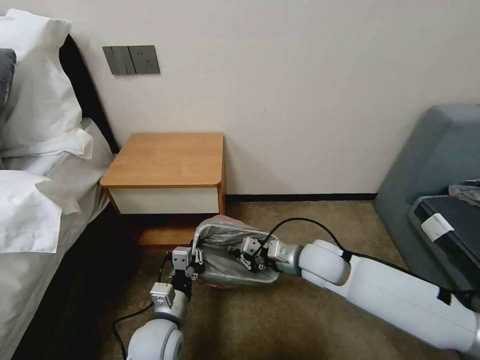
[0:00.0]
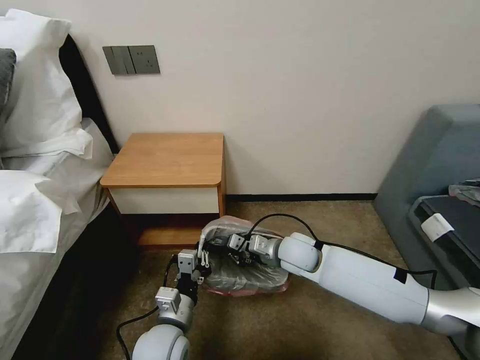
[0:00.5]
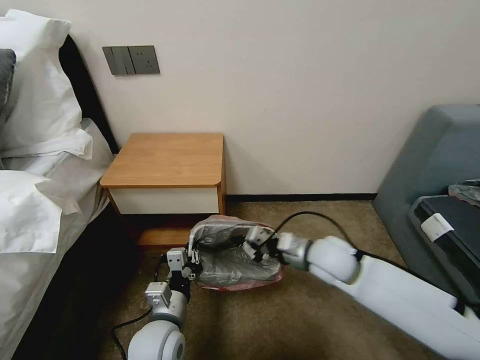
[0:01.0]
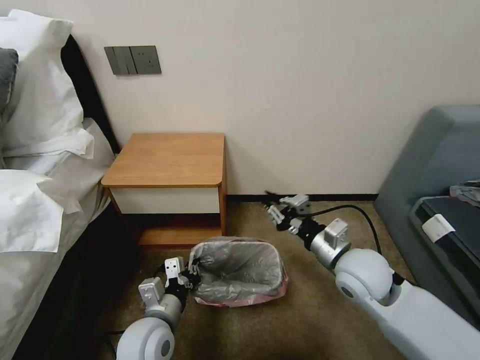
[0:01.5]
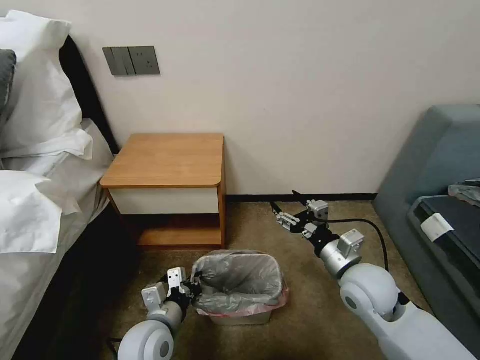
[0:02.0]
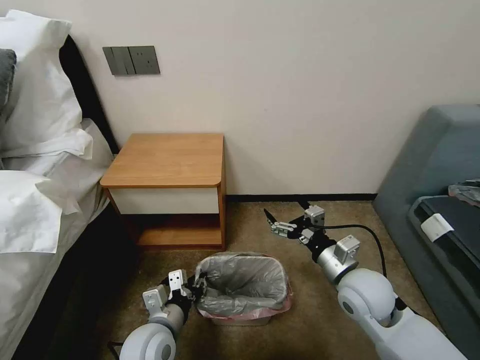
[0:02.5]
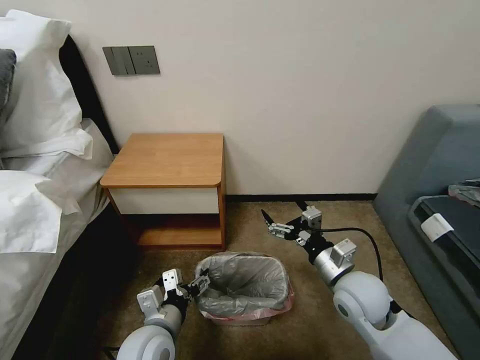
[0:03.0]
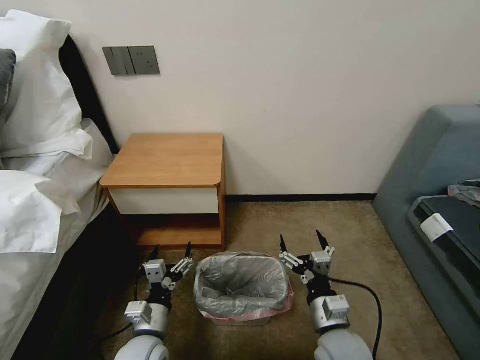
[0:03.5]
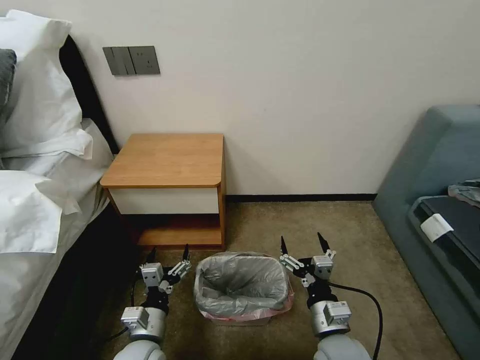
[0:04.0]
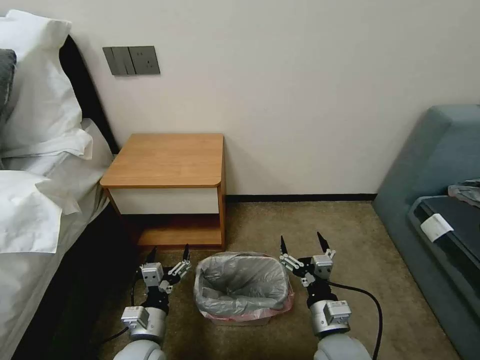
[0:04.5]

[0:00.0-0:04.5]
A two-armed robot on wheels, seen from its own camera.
Task of the whole recording: Pick up the garbage bag from the table and place it over the trash can.
0:00.0 to 0:02.0: The right gripper goes roughly 10 cm to the right and backward, and opens up.
0:02.0 to 0:04.5: The right gripper is displaced backward, downward and to the left by approximately 15 cm, while the left gripper moves approximately 5 cm, and opens its fingers.

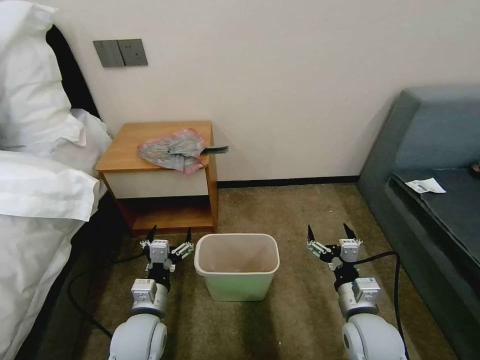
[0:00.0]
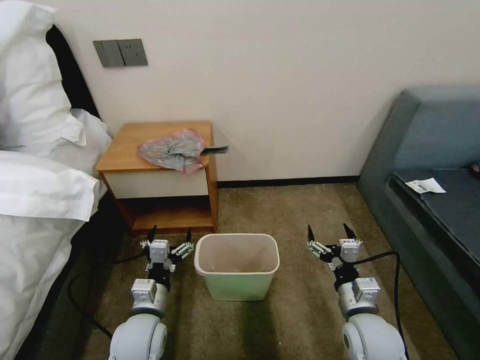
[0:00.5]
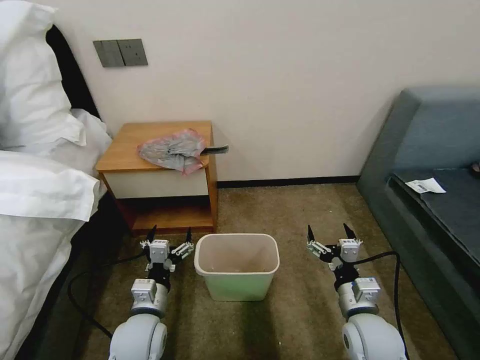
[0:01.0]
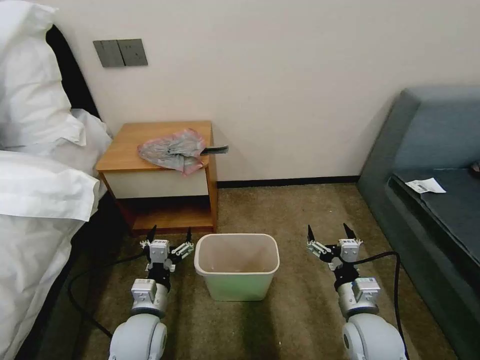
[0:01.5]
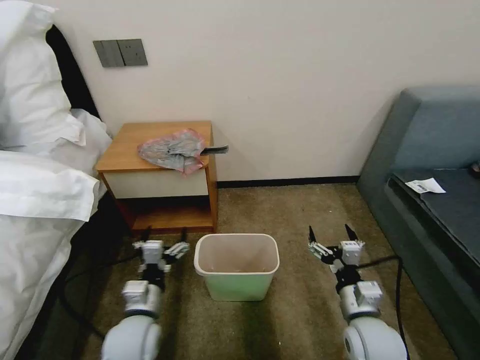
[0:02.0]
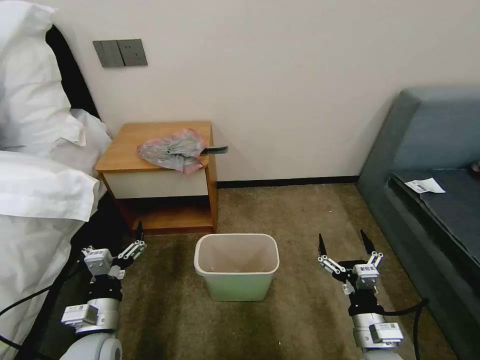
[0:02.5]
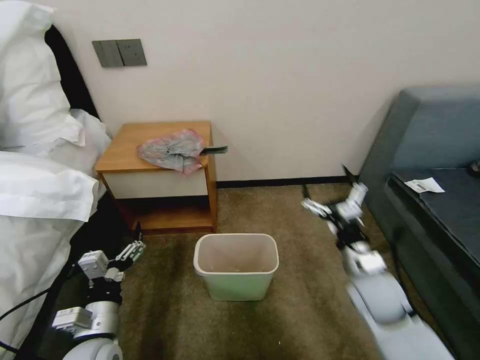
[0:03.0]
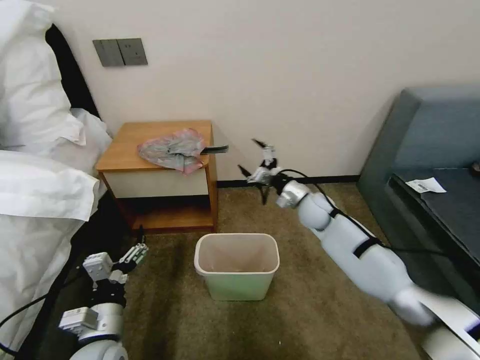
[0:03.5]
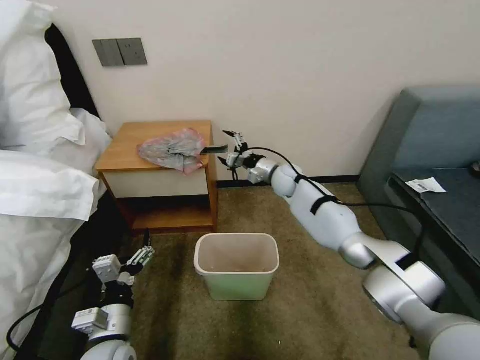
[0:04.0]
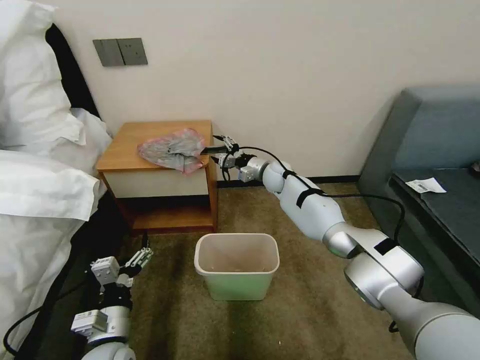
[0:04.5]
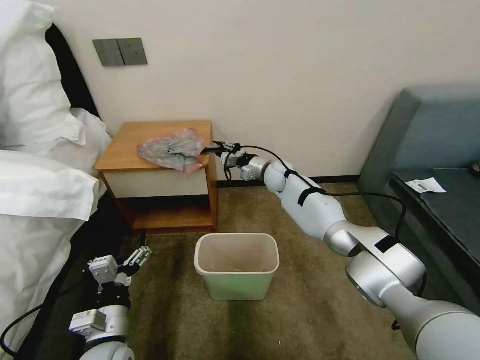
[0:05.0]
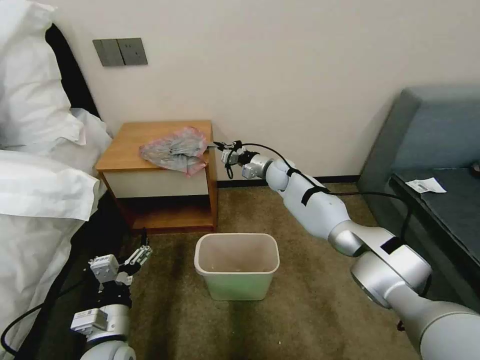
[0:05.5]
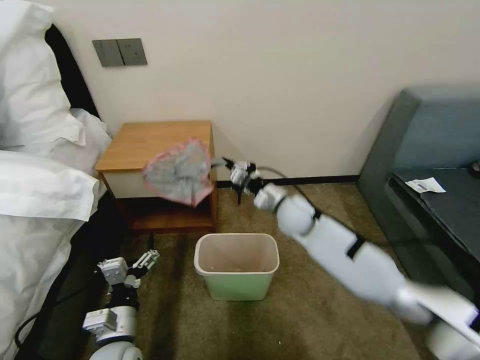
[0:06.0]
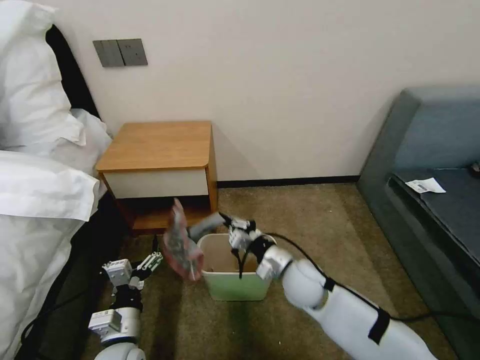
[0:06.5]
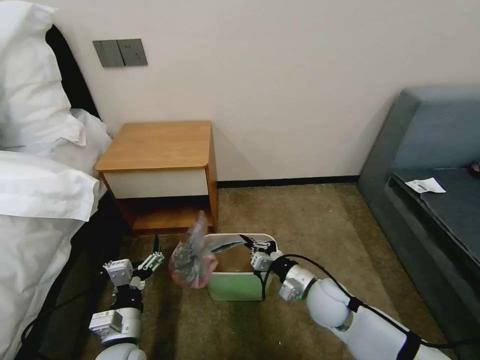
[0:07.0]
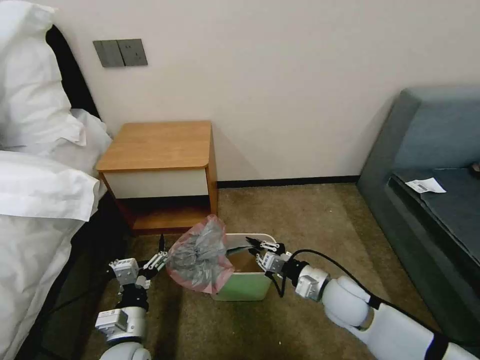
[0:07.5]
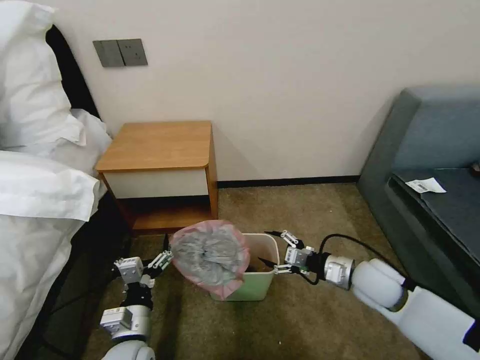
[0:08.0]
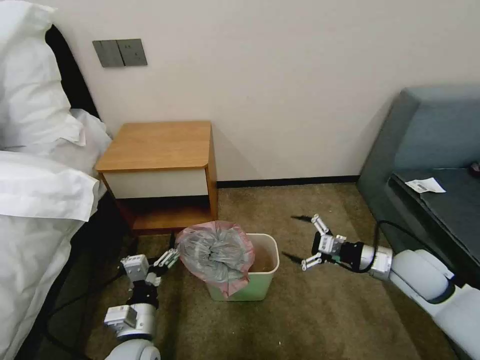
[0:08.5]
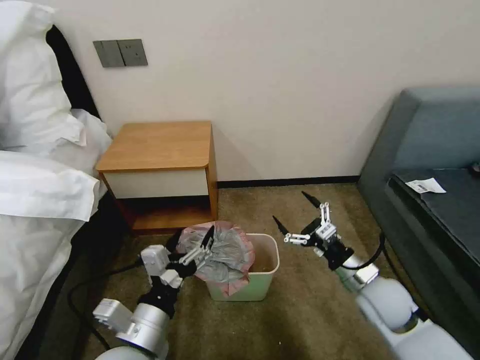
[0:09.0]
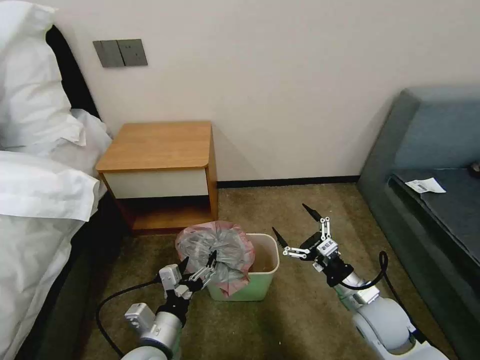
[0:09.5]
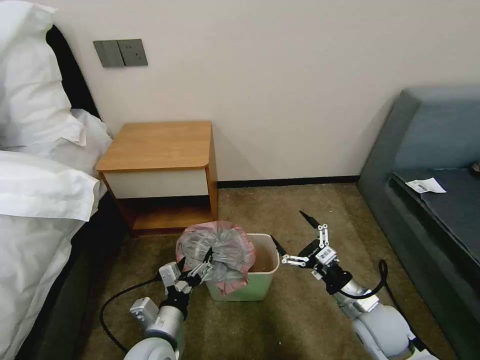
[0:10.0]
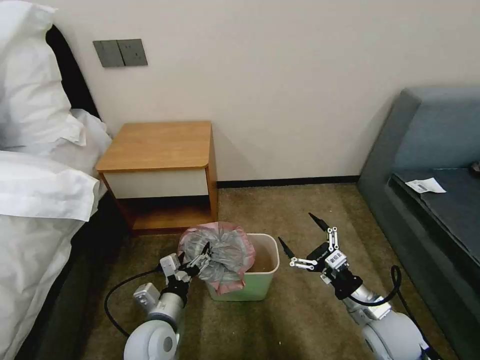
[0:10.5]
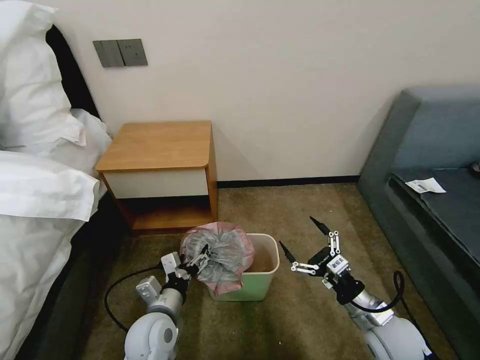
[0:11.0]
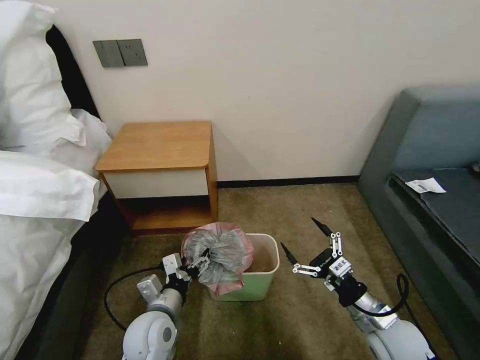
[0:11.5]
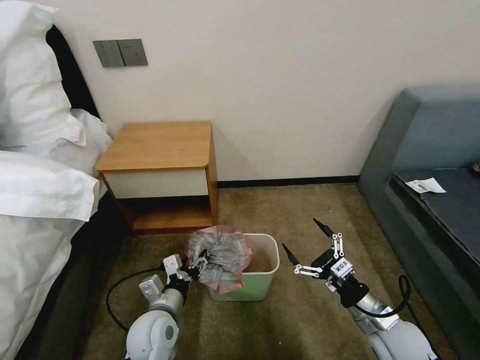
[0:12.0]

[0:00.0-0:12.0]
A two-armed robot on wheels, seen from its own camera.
Task of the whole recording: Pick up the garbage bag from the table and place it over the trash can.
0:02.0 to 0:04.0: The left gripper moves about 5 cm. Meanwhile the right gripper shifts about 40 cm forward.
0:04.0 to 0:06.0: The right gripper heads backward, covering approximately 15 cm, and closes.
0:06.0 to 0:08.0: The right gripper moves to the right and backward, some 20 cm, and opens up.
0:08.0 to 0:10.0: The right gripper shifts about 10 cm backward, and reaches some 10 cm to the right, then returns; the left gripper travels upward and back again, some 10 cm each way.
0:10.0 to 0:12.0: The left gripper travels forward by roughly 5 cm.

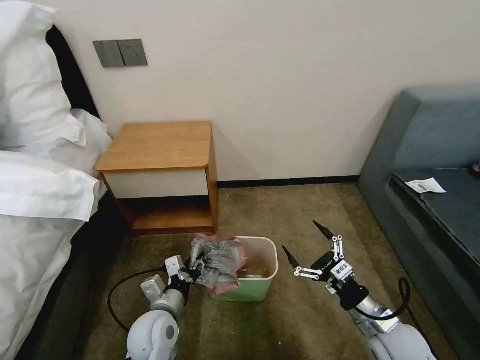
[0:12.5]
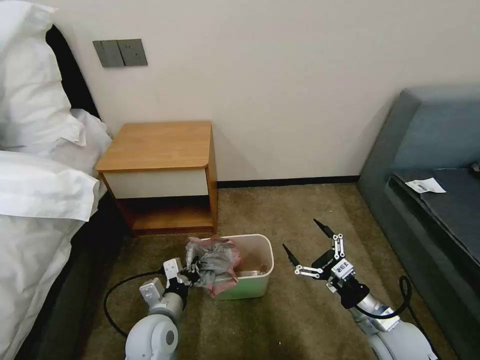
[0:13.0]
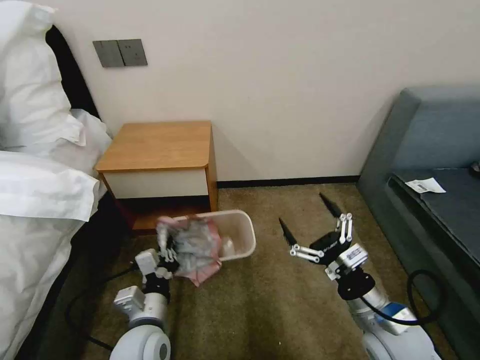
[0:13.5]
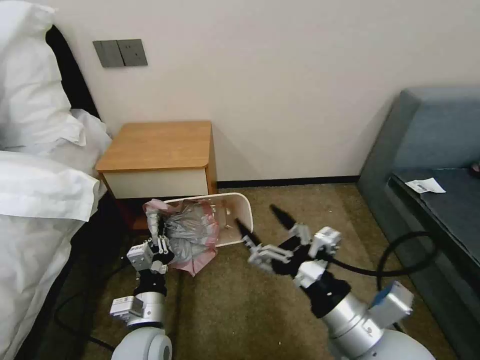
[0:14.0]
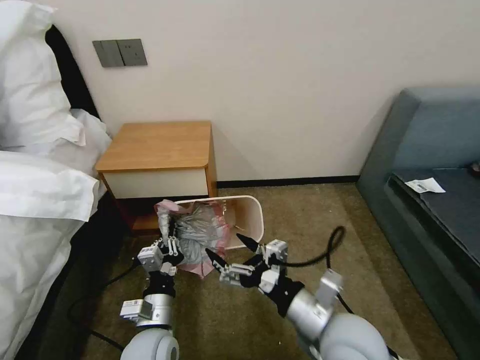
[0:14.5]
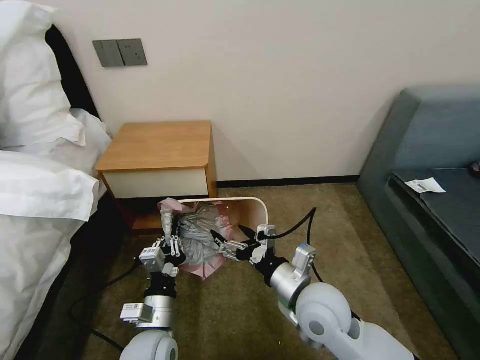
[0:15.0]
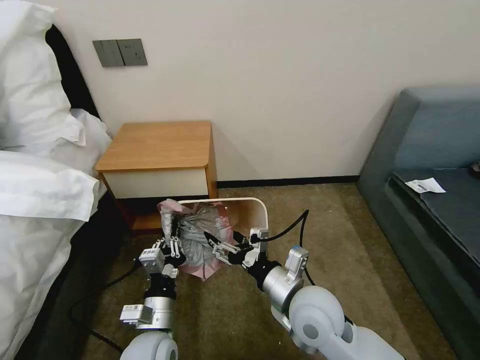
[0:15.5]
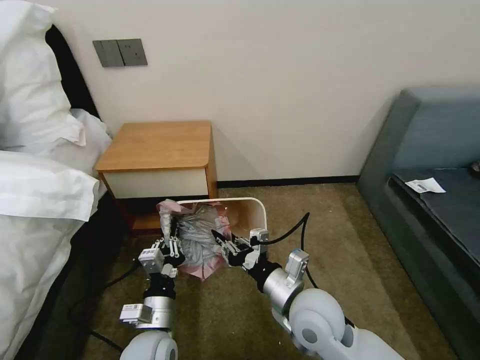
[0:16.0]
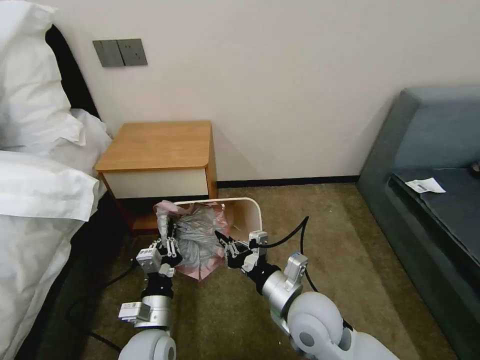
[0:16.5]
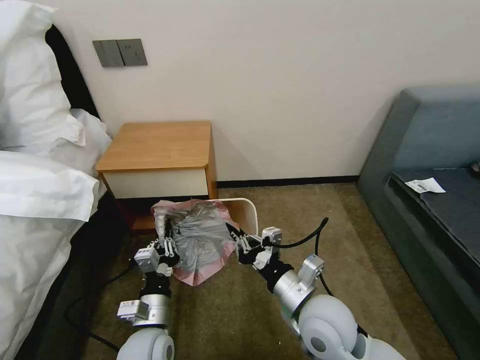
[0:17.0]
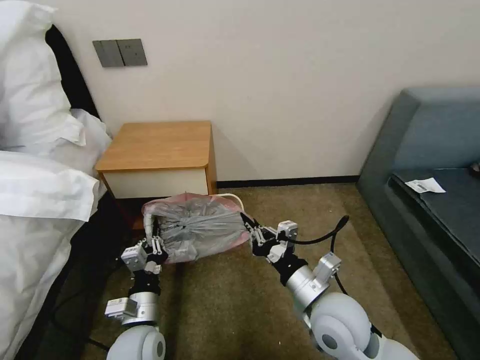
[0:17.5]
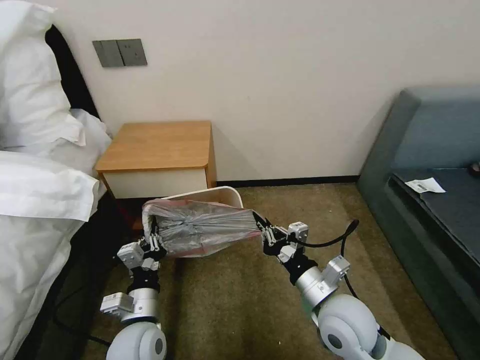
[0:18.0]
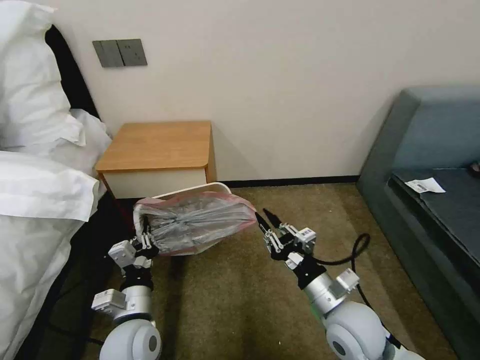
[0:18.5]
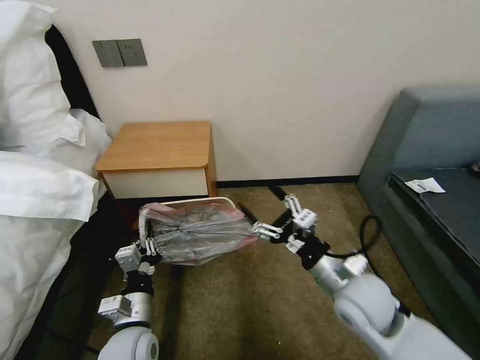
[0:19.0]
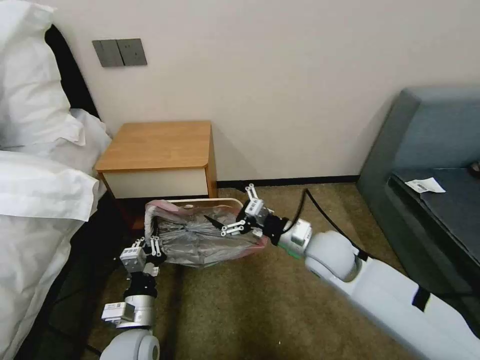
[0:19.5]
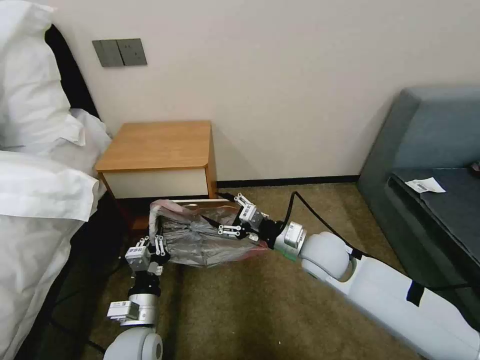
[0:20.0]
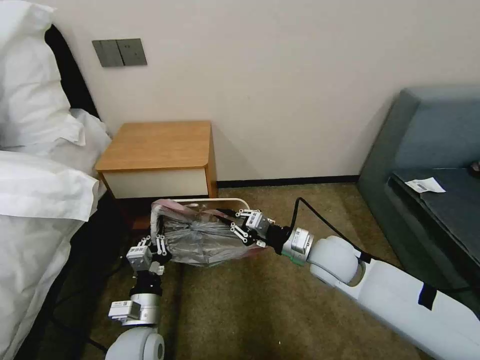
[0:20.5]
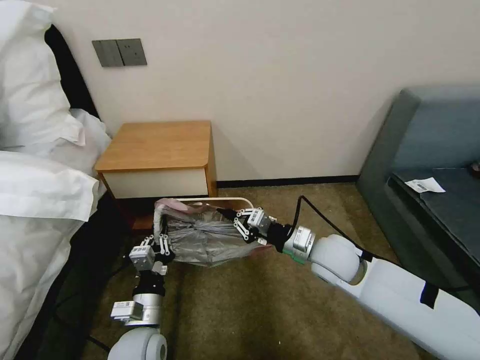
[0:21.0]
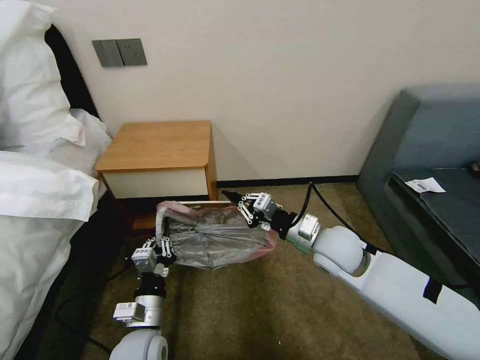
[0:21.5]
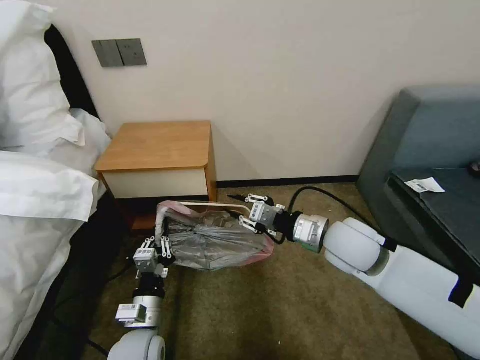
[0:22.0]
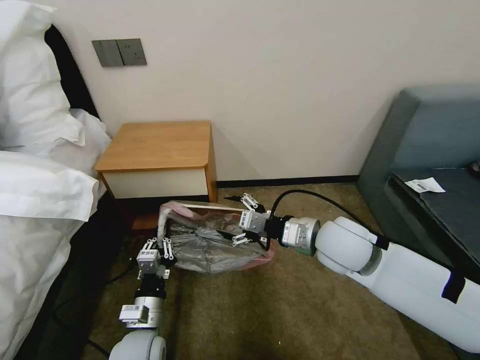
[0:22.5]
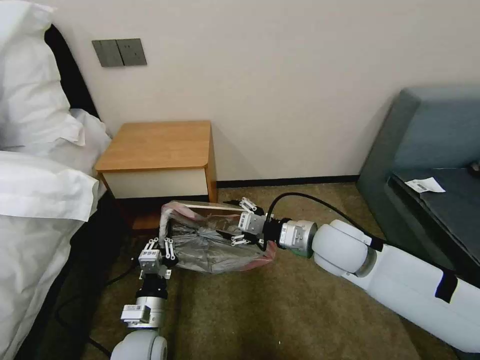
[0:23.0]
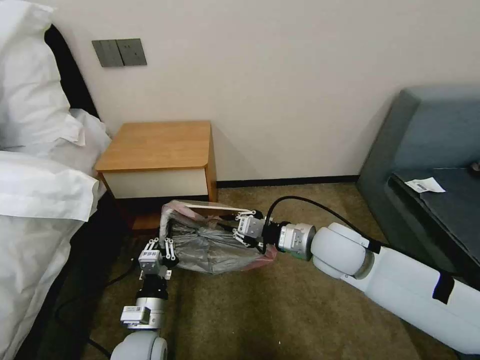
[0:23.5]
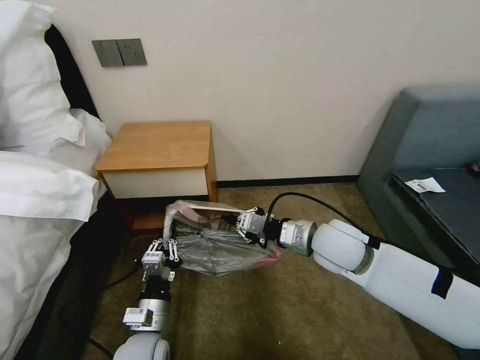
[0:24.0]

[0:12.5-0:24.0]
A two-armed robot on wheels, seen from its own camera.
Task of the whole recording: Pick up the garbage bag from the table and place it over the trash can.
0:12.5 to 0:14.5: The left gripper closes up; the right gripper shifts about 20 cm to the left and upward.
0:14.5 to 0:16.5: The right gripper changes place by about 5 cm, and closes.
0:16.5 to 0:18.5: The right gripper moves to the right, approximately 10 cm.
0:18.5 to 0:20.0: The right gripper is displaced forward by some 15 cm, and opens its fingers.
0:20.0 to 0:22.0: The right gripper heads upward, covering approximately 5 cm.
0:22.0 to 0:24.0: The right gripper opens, then closes again.
